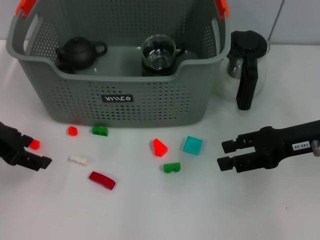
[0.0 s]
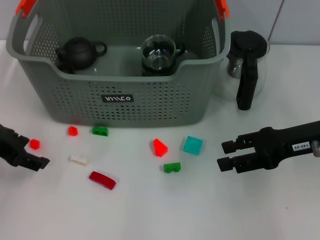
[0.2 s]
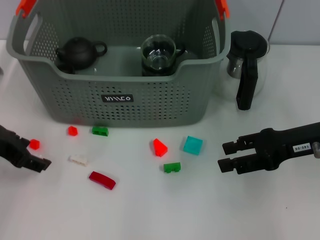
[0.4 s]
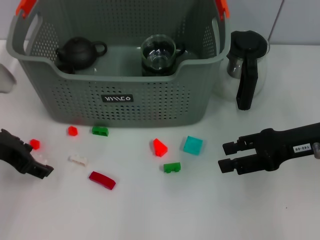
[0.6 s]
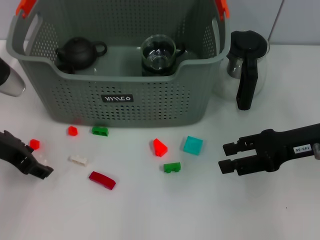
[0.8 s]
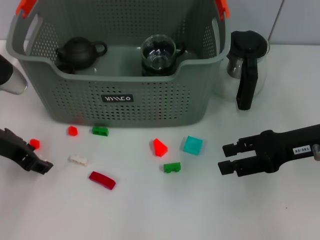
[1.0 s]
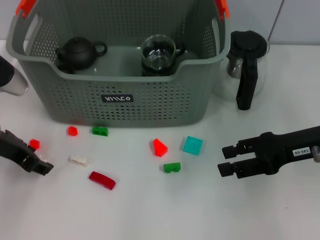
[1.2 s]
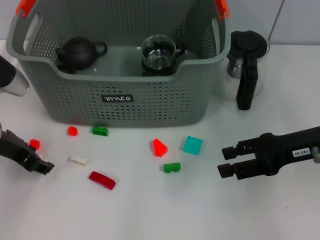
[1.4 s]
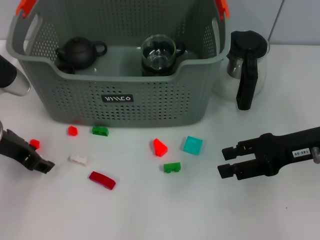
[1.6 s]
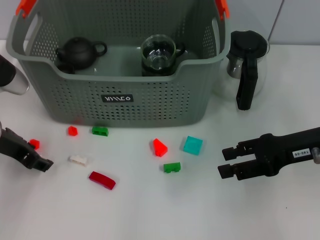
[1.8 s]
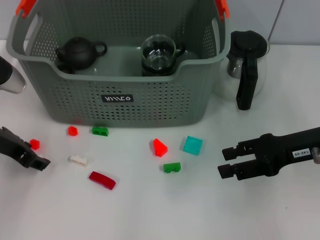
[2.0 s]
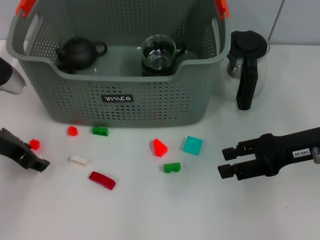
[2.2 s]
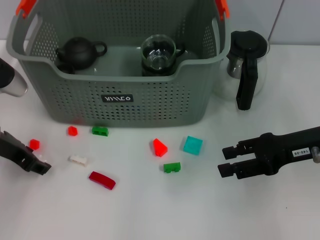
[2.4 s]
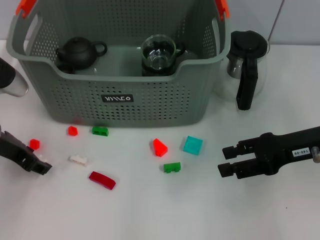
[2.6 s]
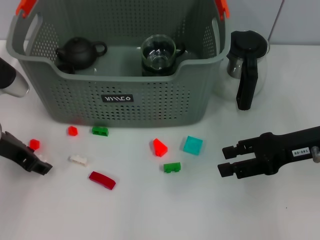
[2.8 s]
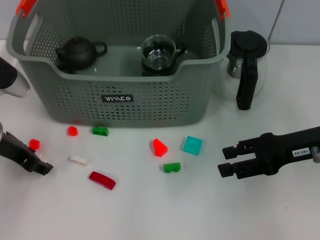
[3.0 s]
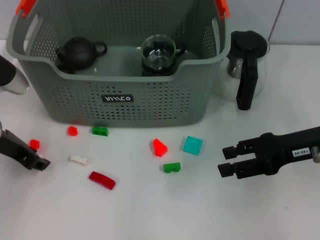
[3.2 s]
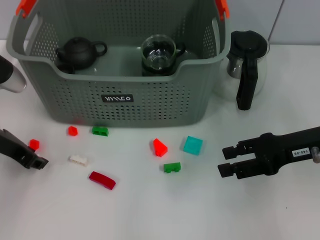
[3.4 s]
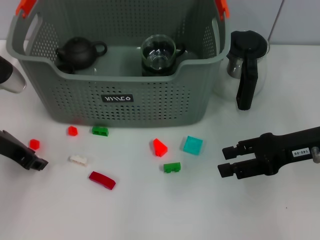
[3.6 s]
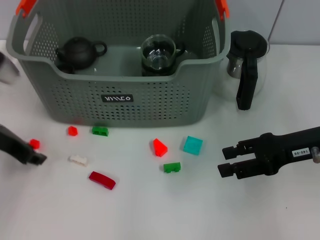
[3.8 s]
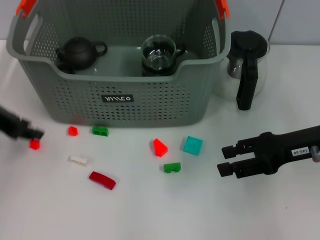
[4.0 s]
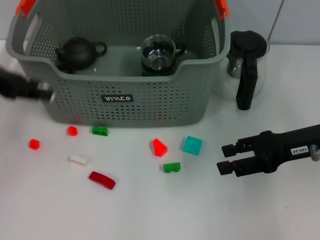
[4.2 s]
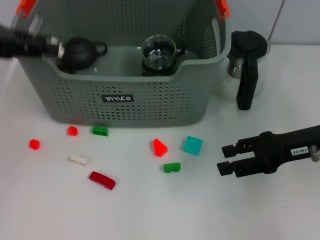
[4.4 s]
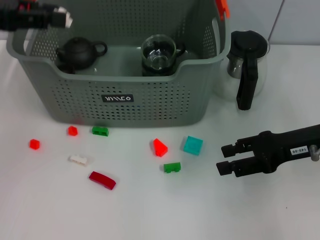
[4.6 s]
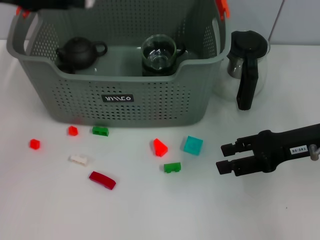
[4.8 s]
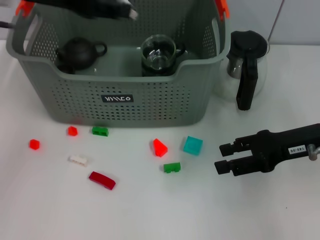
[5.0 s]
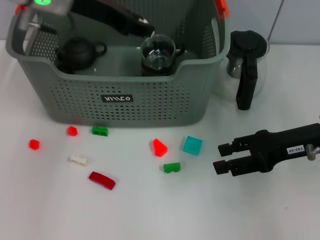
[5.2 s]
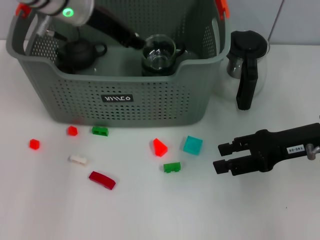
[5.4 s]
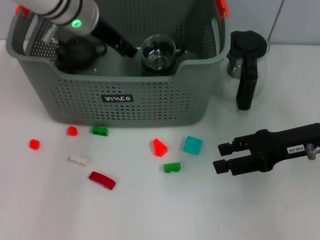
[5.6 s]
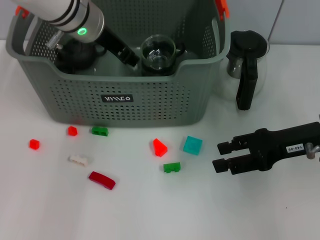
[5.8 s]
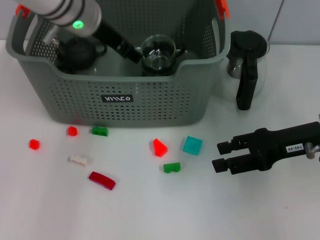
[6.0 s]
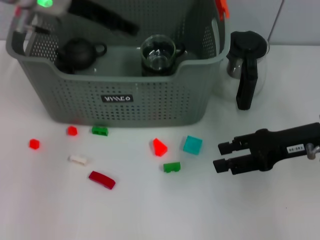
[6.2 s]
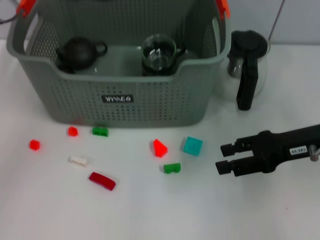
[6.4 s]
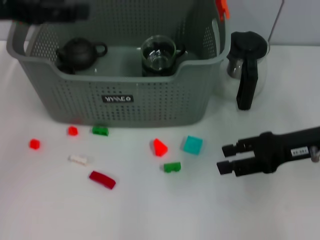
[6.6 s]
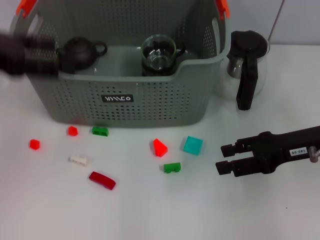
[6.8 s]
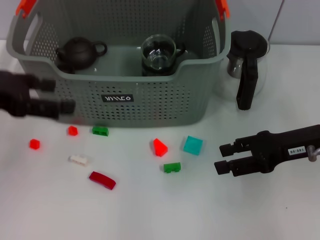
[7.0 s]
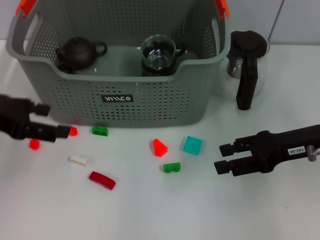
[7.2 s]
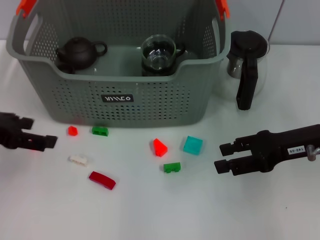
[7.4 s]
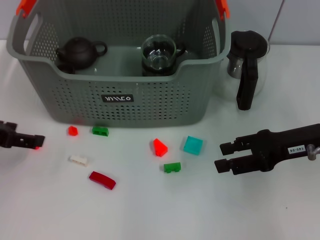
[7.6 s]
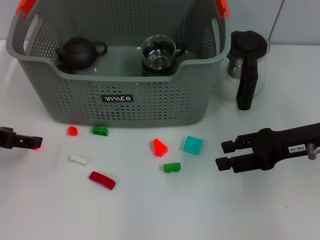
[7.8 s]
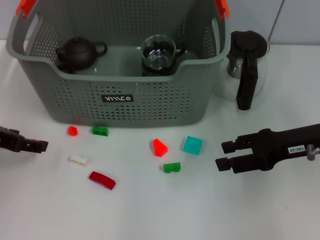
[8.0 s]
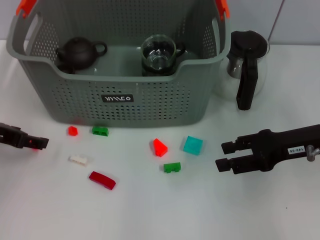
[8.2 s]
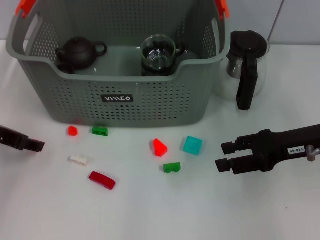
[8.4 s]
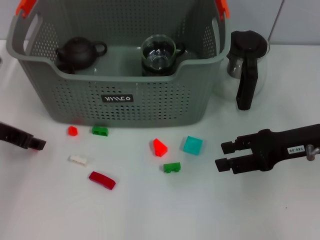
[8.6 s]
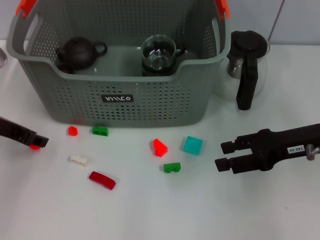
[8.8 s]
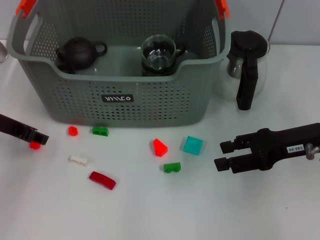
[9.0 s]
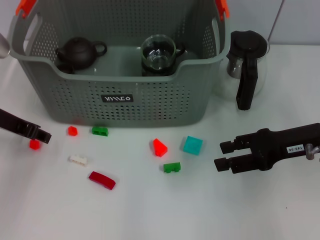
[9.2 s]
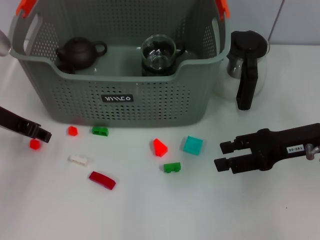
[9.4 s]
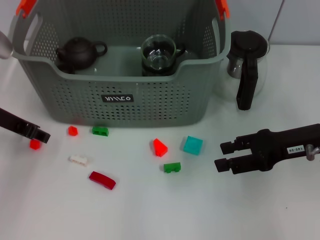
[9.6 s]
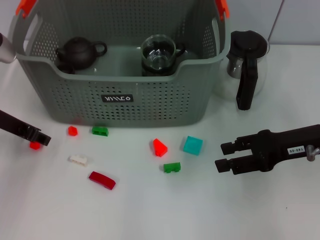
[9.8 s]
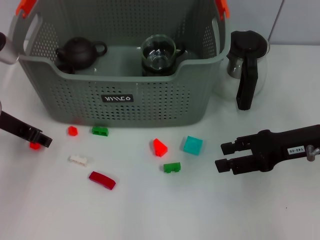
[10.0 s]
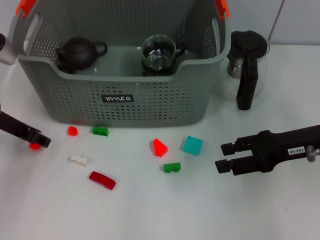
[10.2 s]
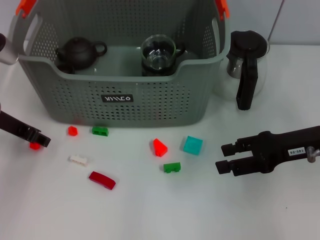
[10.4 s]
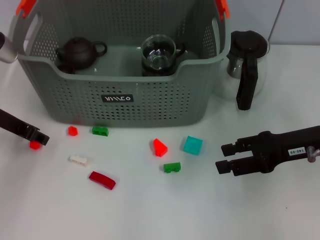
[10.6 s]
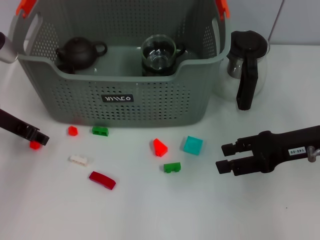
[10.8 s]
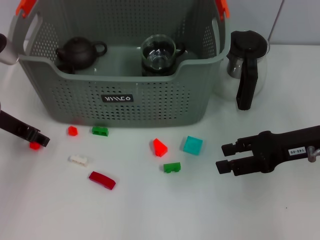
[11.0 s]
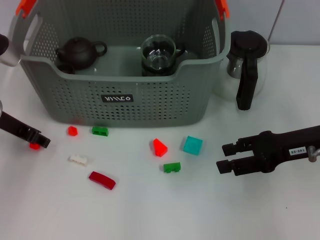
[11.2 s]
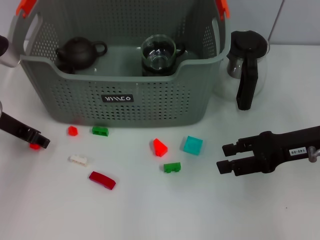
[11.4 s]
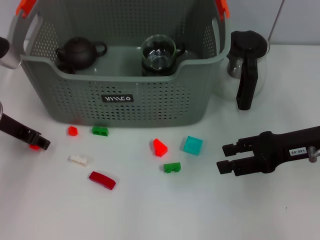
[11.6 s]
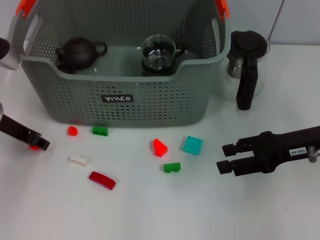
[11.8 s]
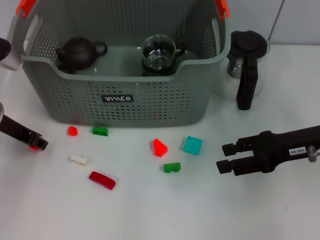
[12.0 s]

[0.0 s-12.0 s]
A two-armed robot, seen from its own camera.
Task of the whole recording: pick up the teacup on the table and place it into the storage bin, pick up the block on the table and place it into the storage bin.
Step, 0.0 to 3.8 s: Grasp the white block with left gripper.
Step, 4.0 to 6.2 s: Place the white block in the storage box with left gripper.
0.0 to 1.6 s: The left gripper goes approximately 5 cm downward.
1.6 to 3.0 s: The two grippers keep their place.
3.0 to 4.4 s: The left gripper is displaced upward by approximately 15 cm.
4.4 to 6.0 s: The left gripper travels to the right and forward by approximately 20 cm.
6.0 to 7.6 s: The left gripper goes roughly 25 cm to the left and backward, and opens its fingers.
7.6 to 9.0 s: The left gripper goes roughly 5 cm forward, and closes.
9.0 to 10.4 s: The grippers make only small movements.
10.4 to 12.0 s: Both grippers stay about where they are.

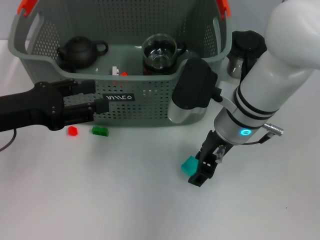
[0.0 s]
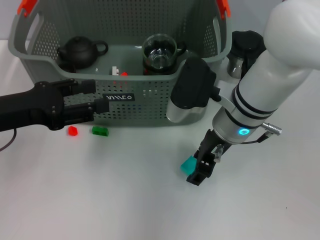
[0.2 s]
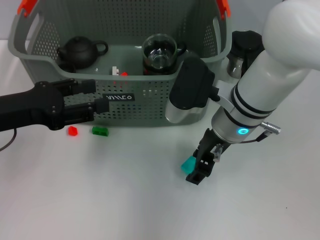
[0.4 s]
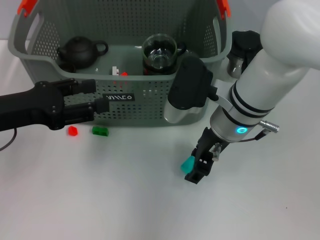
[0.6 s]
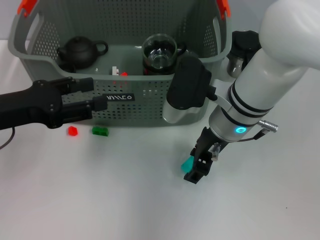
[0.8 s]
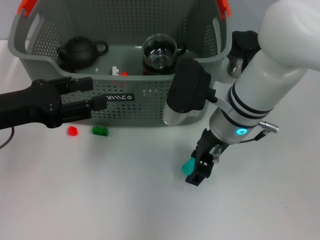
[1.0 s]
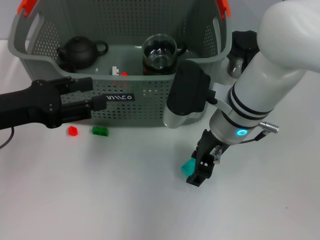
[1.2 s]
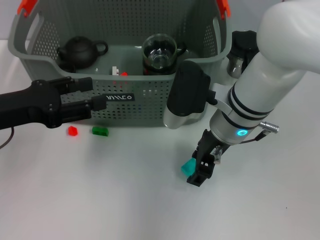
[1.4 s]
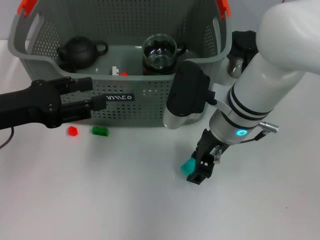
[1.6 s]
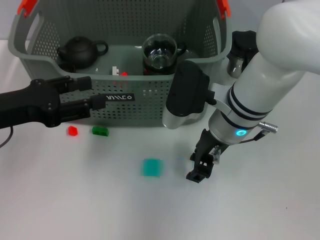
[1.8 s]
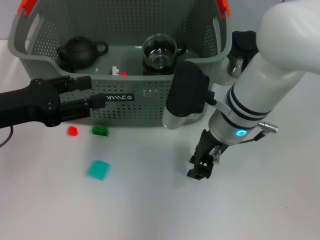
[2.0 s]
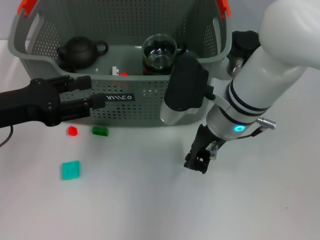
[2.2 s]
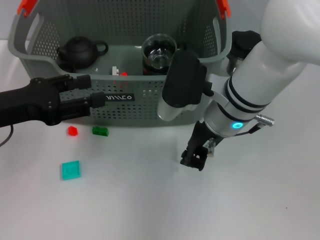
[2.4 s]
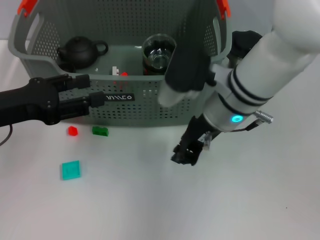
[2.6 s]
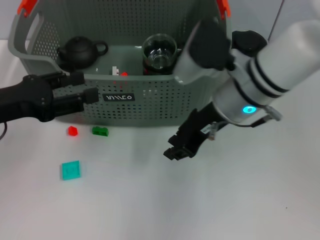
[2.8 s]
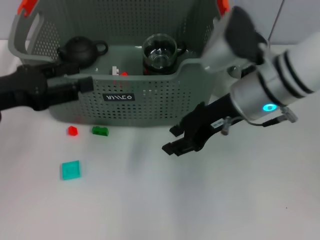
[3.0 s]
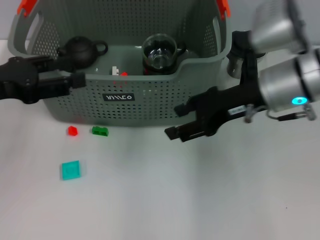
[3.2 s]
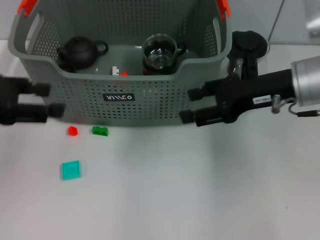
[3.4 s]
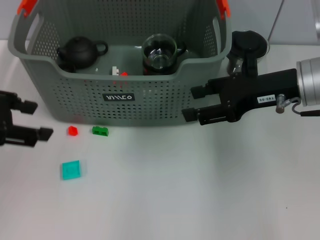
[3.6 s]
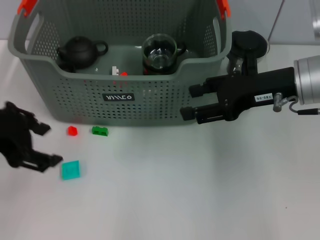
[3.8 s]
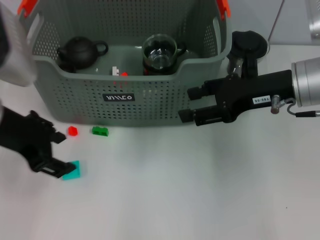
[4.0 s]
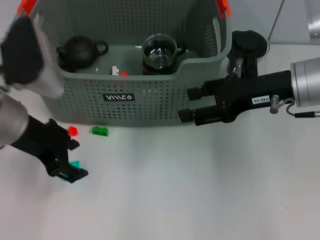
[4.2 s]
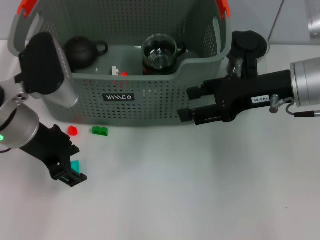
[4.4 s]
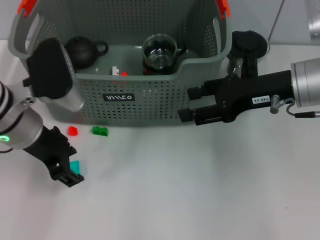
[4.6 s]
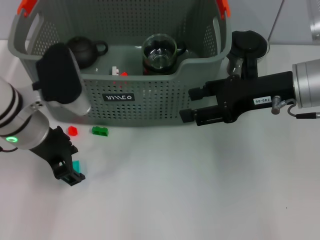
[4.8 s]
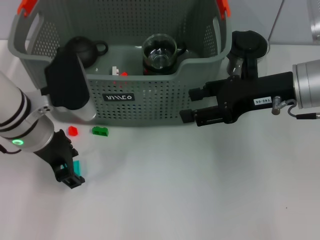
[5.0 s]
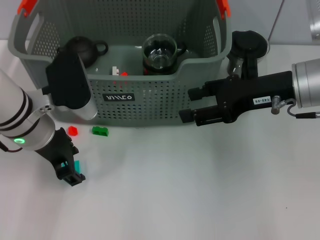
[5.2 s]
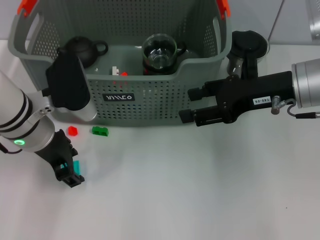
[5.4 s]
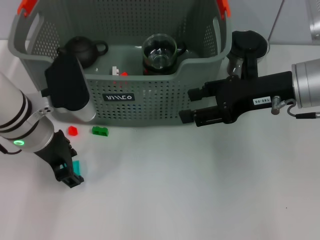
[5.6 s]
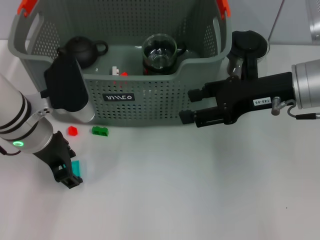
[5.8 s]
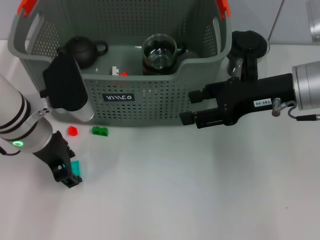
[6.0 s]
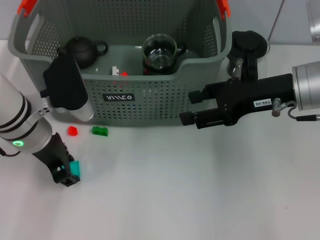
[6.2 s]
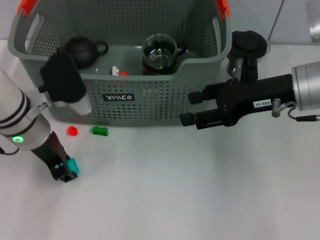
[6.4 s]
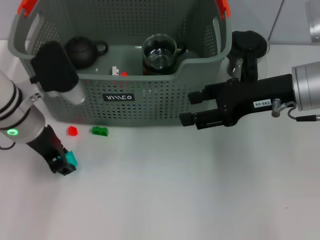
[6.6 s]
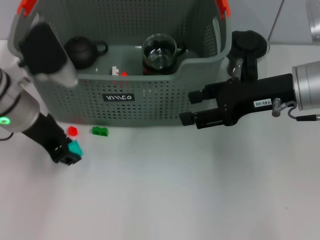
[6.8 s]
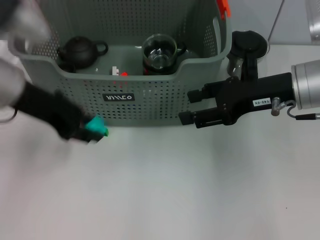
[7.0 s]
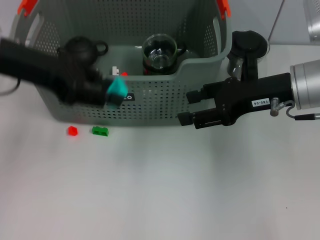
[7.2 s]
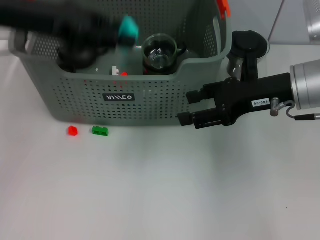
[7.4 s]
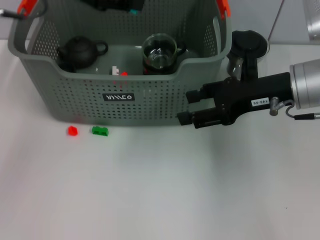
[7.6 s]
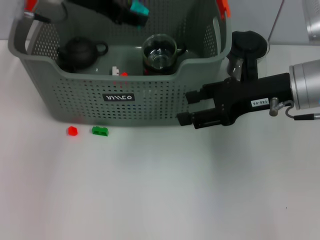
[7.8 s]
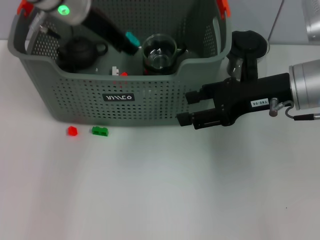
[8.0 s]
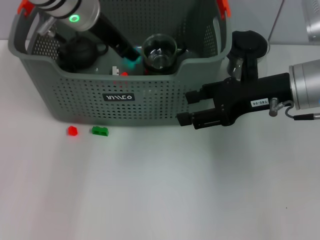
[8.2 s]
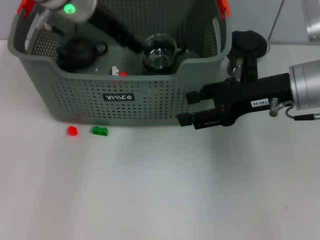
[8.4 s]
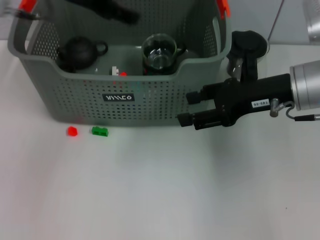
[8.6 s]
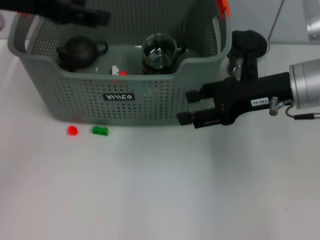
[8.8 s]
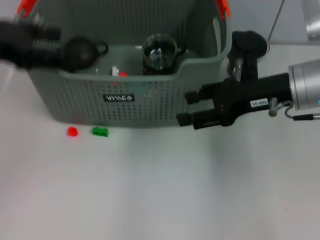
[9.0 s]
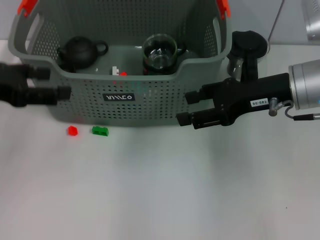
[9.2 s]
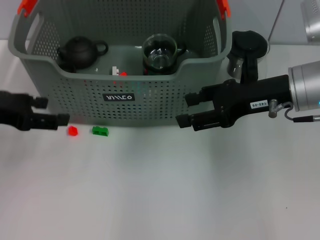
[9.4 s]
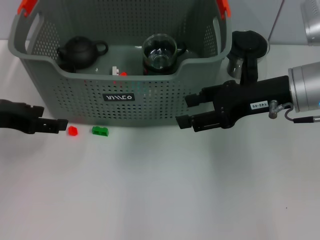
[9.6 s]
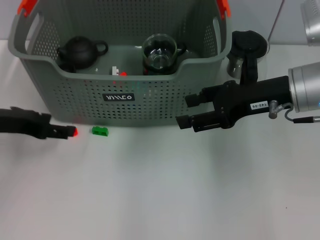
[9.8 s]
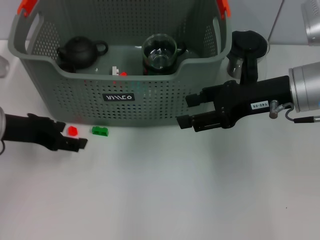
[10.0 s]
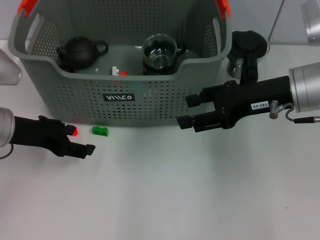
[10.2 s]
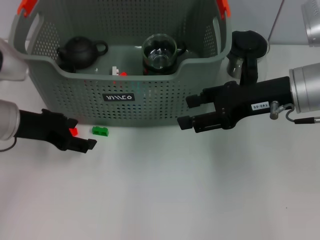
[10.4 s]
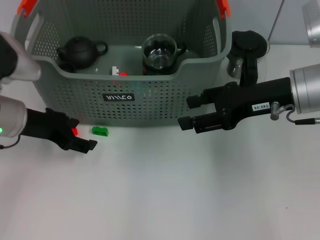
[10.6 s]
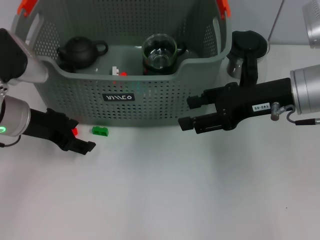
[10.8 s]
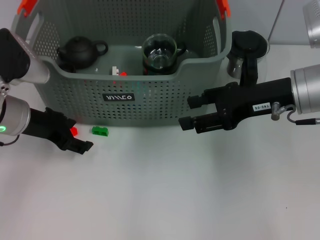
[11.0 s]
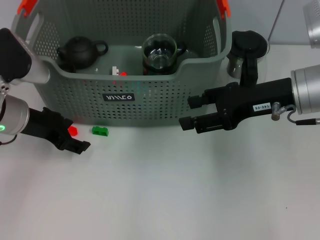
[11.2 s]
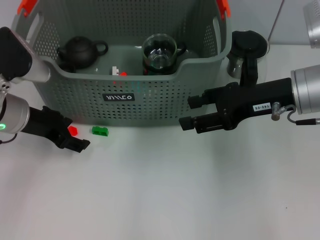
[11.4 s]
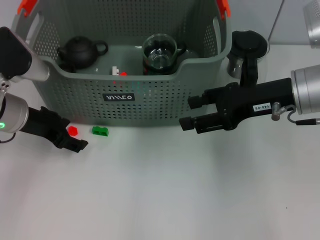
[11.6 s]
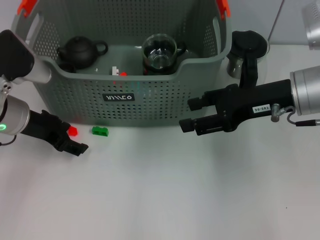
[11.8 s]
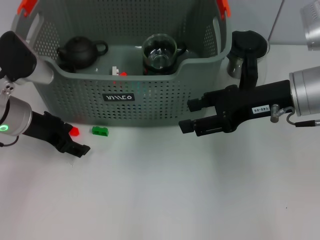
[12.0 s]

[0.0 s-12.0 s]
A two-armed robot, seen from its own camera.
Task of the whole recording: pick up the teacup on the table and place it into the storage bin, pick up the block on the table and place it into the storage bin.
Step, 0.0 to 8.4 s: Place the light blue block in the storage box with left gripper.
0.0 to 1.6 s: The grippers move only a little.
1.6 to 3.0 s: The right gripper shifts by about 5 cm.
3.0 to 4.4 s: Both grippers travel together to the right, some 10 cm. The right gripper opens its fingers.
4.4 to 6.0 s: The grippers stay close to where they were, moving slightly.
6.0 to 7.6 s: The left gripper goes about 15 cm upward and forward, and closes its fingers.
7.6 to 9.0 s: The left gripper goes approximately 15 cm backward and to the left, and opens its fingers.
9.0 to 10.4 s: The left gripper goes some 10 cm downward.
10.4 to 12.0 s: The grippers stay close to where they were, moving slightly.
